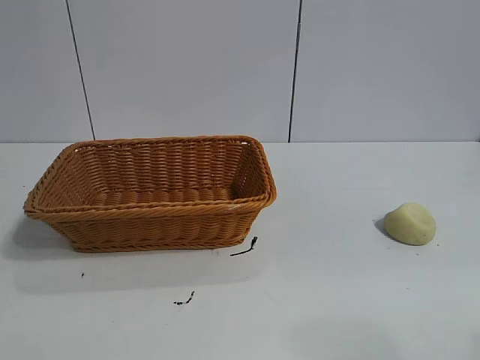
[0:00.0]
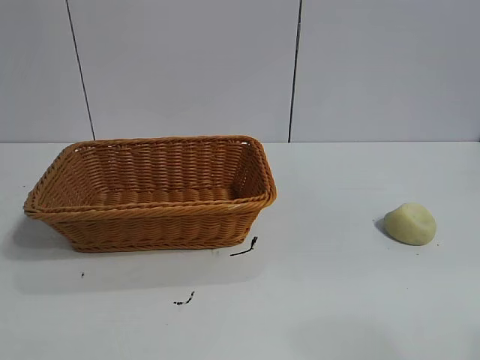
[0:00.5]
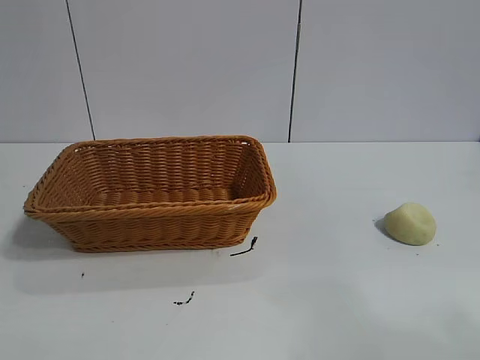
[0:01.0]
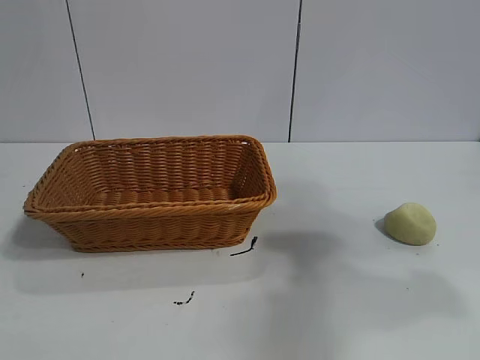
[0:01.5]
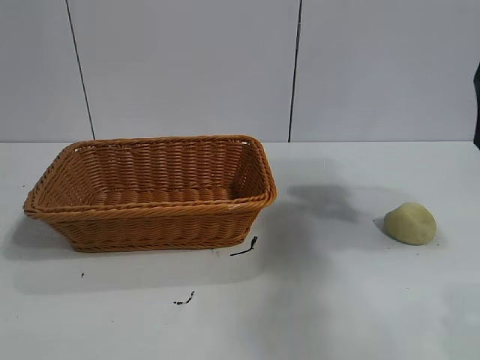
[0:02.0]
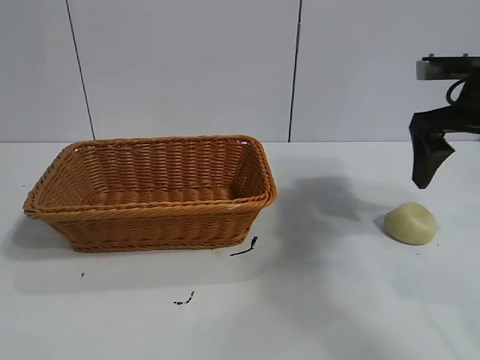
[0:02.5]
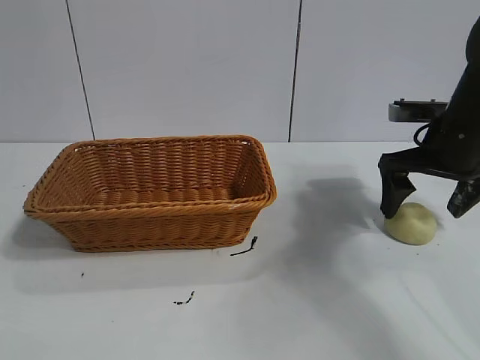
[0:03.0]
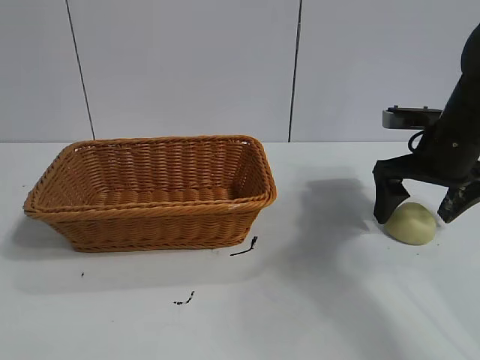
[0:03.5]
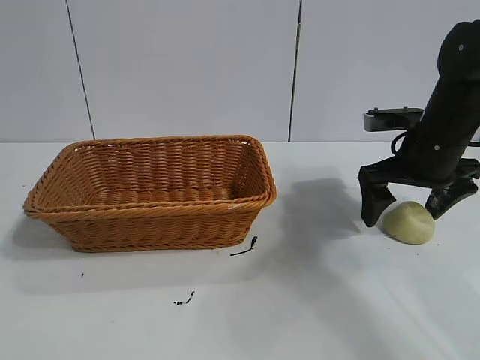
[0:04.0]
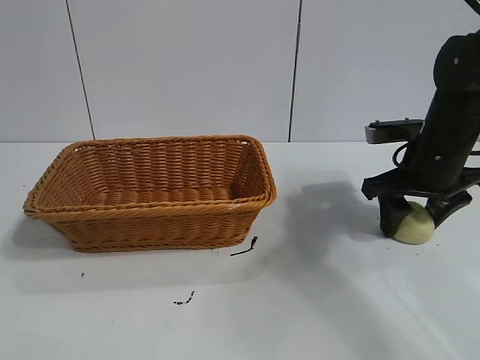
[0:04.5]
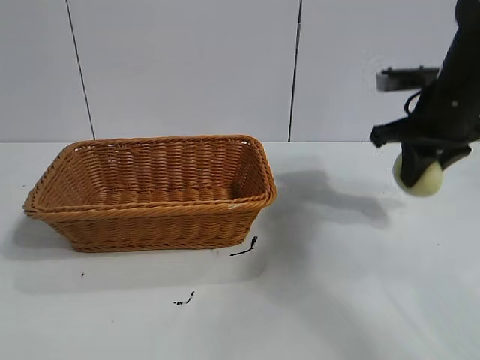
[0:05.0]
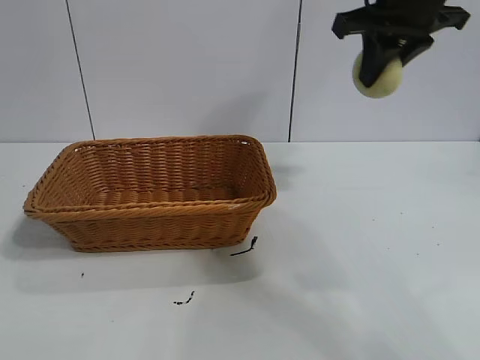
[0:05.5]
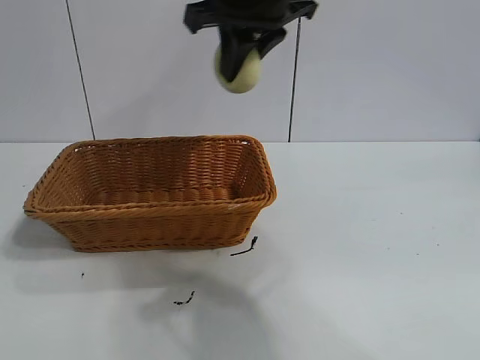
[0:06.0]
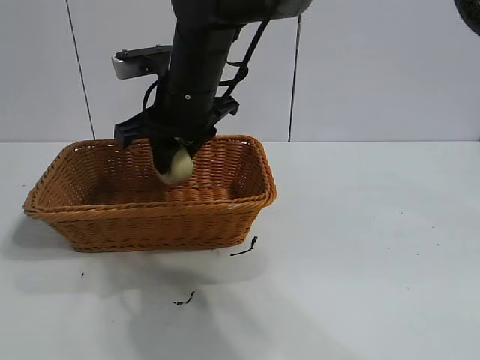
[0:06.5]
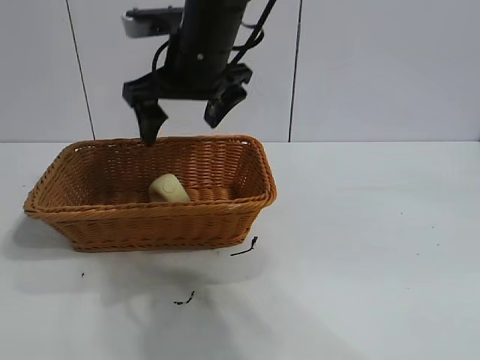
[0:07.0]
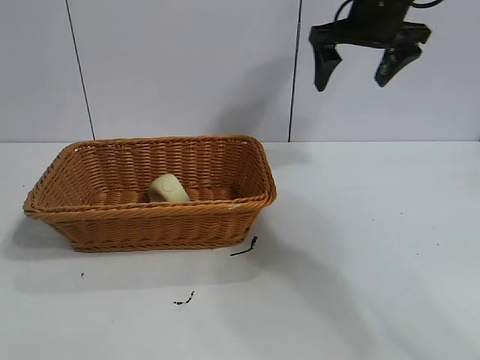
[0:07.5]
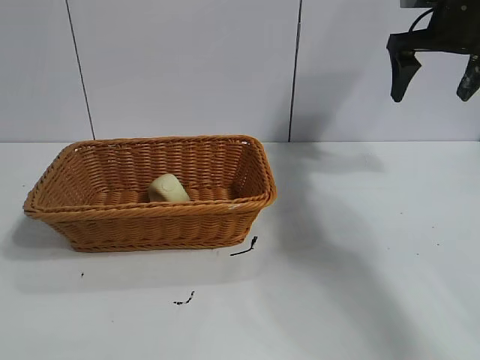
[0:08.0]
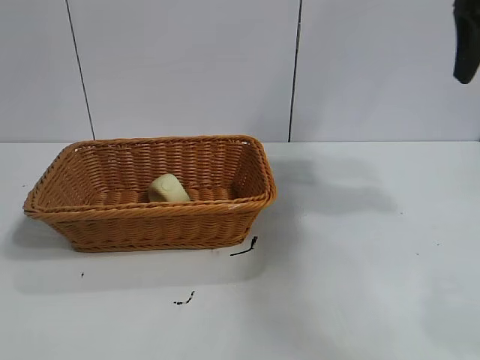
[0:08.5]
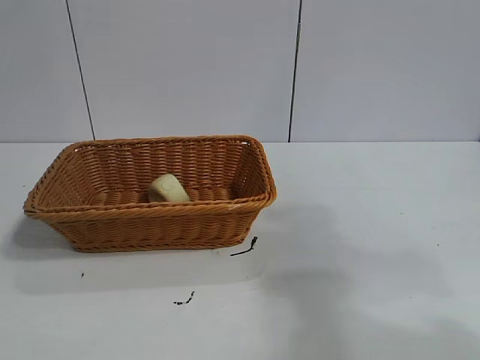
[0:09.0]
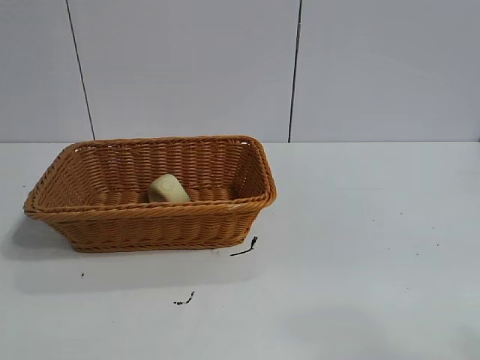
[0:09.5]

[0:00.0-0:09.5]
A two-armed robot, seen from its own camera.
Task of the whole recording: pick up the egg yolk pastry and put it into the basket.
Step, 0:01.0 to 0:04.5: Grasp egg yolk pastry with right gripper.
Step, 0:05.0 to 0:06.5: Place the egg yolk pastry in the basket with right gripper.
